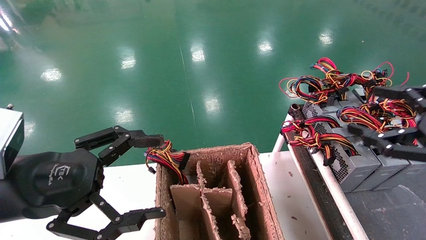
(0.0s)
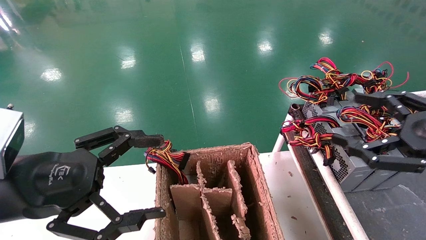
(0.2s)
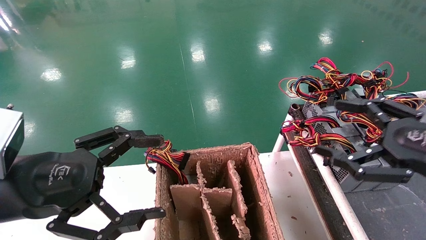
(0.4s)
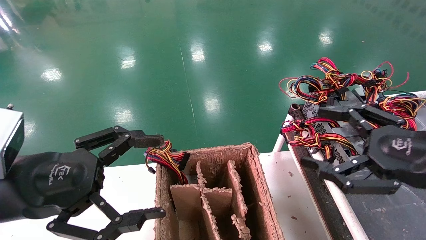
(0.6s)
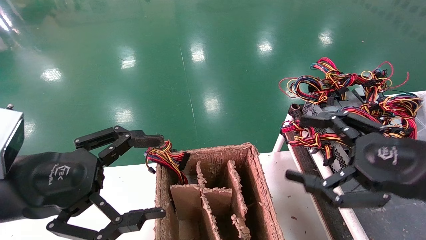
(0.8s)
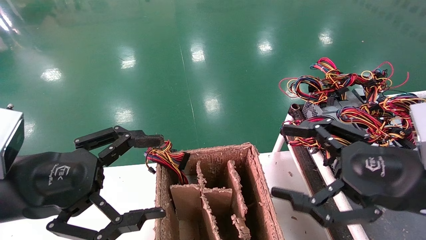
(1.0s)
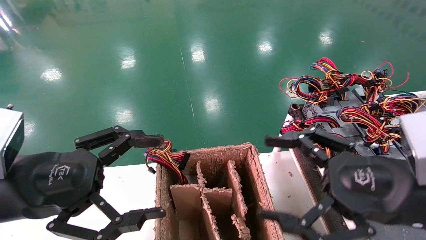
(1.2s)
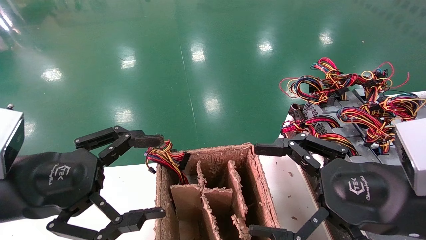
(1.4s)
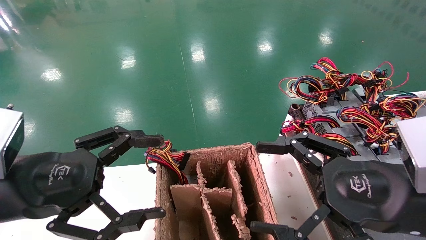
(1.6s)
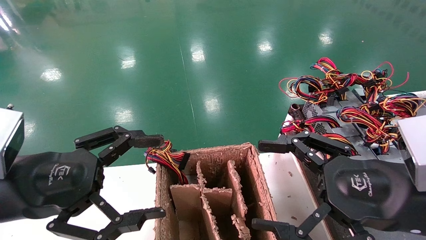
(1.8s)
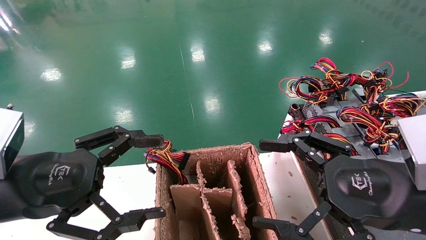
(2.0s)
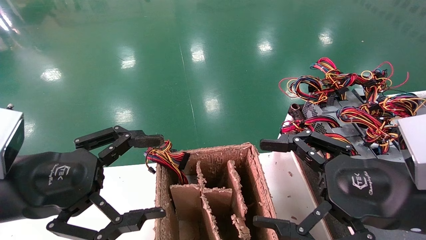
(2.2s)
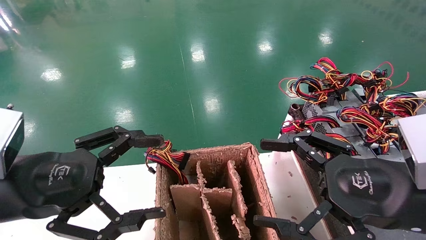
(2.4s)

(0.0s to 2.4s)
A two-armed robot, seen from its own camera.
0.0s - 1.2s: The right gripper travels to the left by approximately 15 cm.
1.2s - 2.4s: Both grippers stay put.
